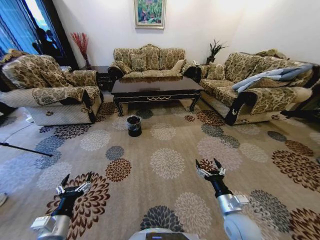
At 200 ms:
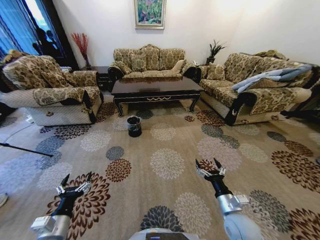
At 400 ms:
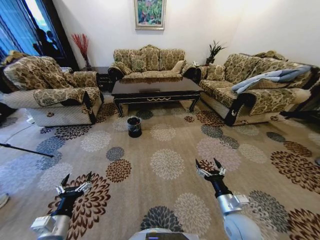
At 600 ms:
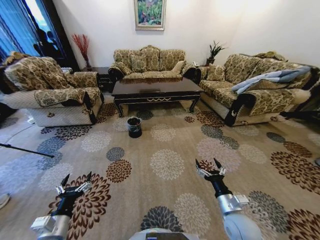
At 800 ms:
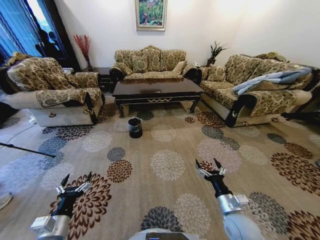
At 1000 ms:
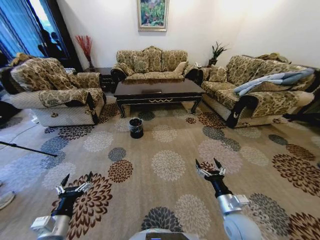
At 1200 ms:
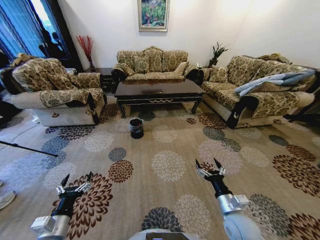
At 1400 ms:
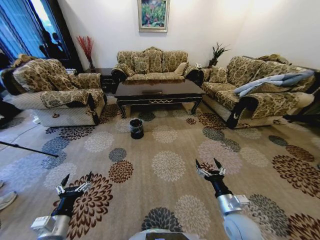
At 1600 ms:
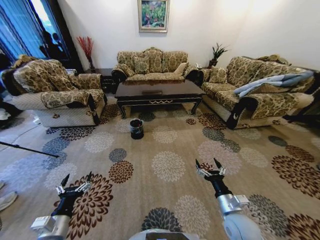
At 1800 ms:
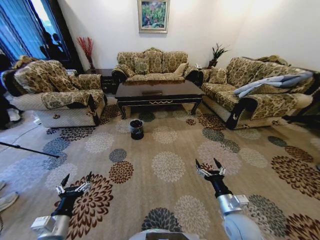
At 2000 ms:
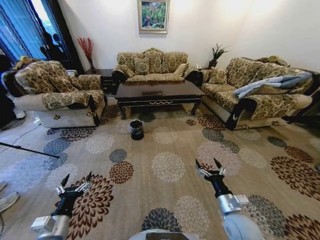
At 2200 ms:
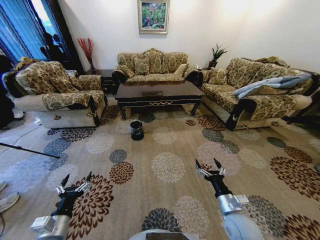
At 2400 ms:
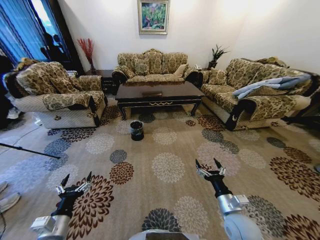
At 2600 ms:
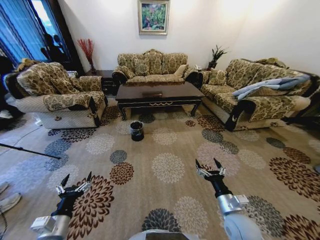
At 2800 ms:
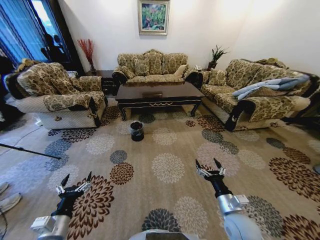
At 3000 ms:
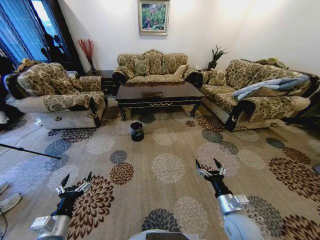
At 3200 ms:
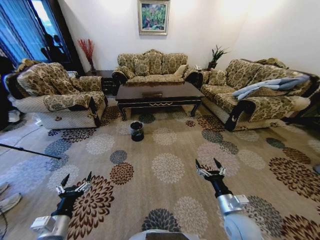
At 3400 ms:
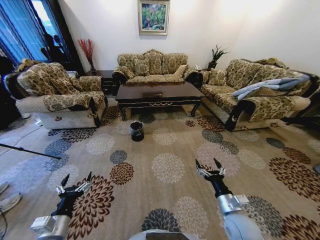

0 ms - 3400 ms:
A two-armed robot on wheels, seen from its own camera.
Task of the whole recording: Move to the front of the table and pick up the trash from the floor, then place it into the trash bin.
1600 ms - 3400 ms: Both grippers stay about where they are.
